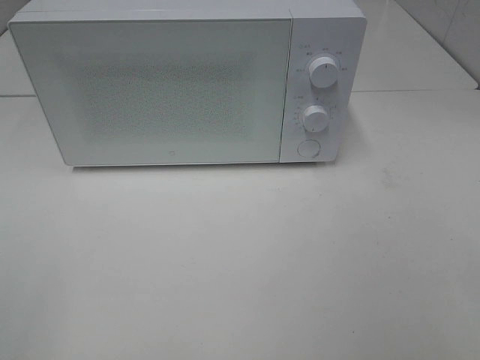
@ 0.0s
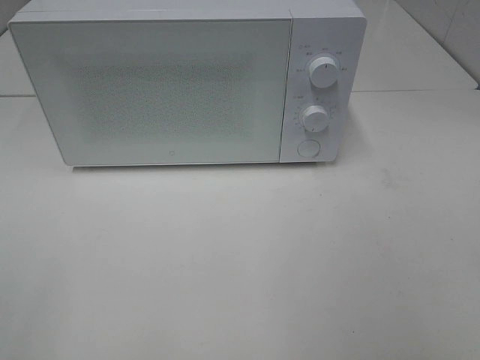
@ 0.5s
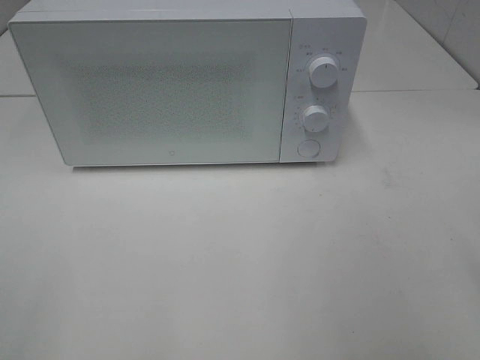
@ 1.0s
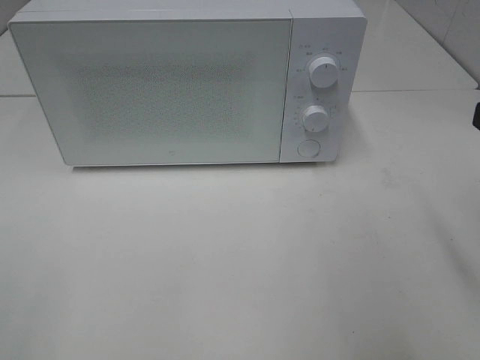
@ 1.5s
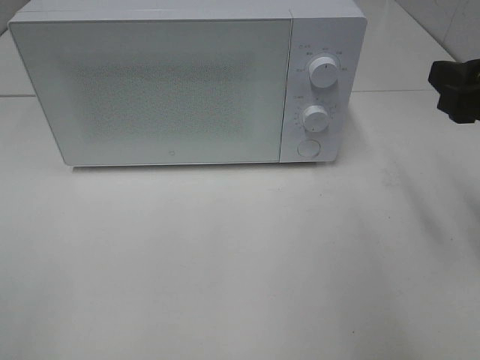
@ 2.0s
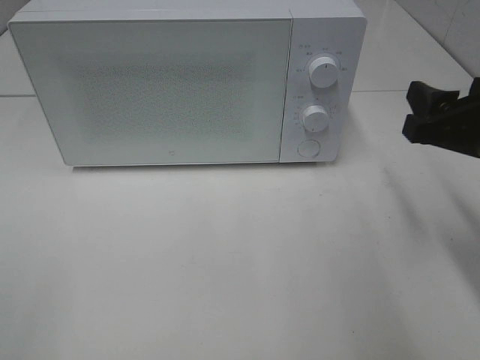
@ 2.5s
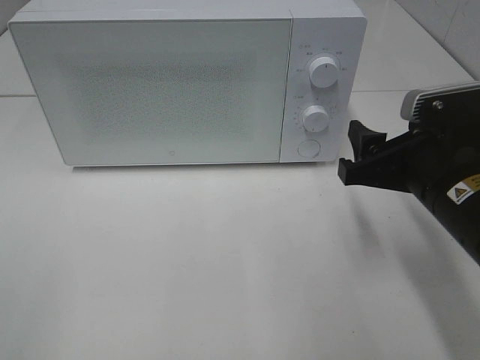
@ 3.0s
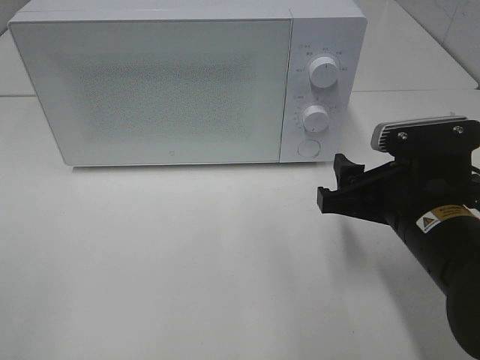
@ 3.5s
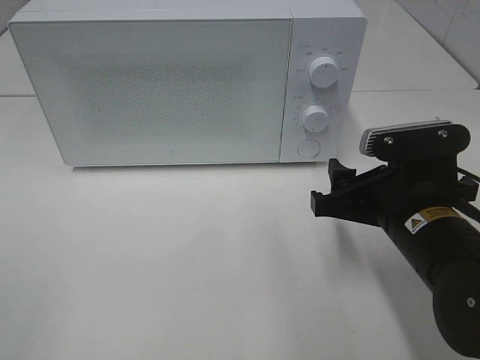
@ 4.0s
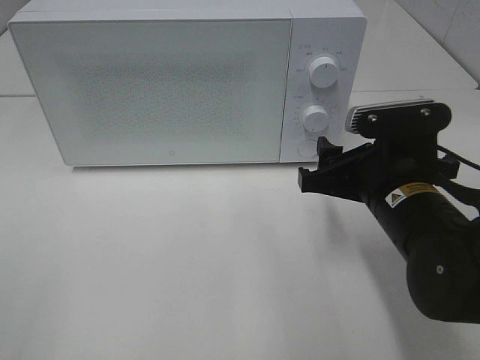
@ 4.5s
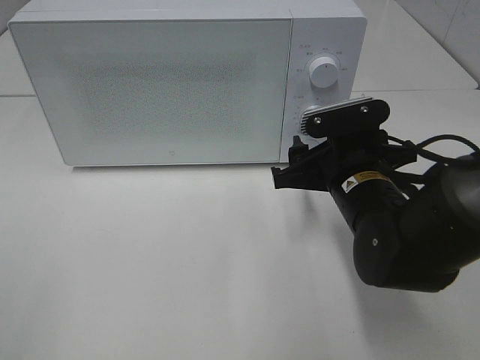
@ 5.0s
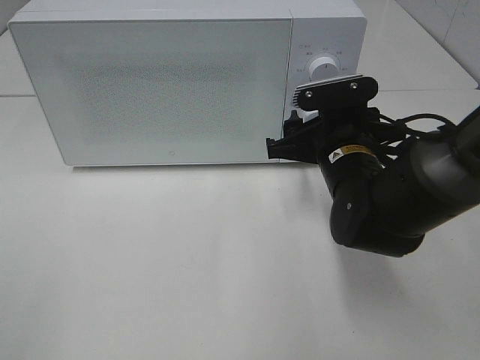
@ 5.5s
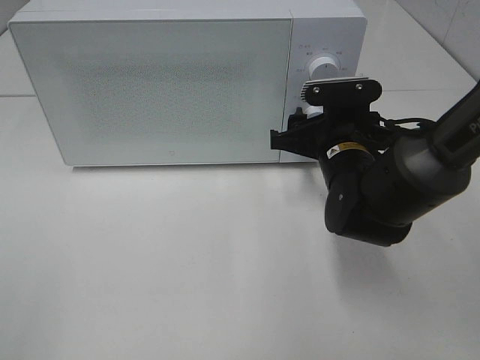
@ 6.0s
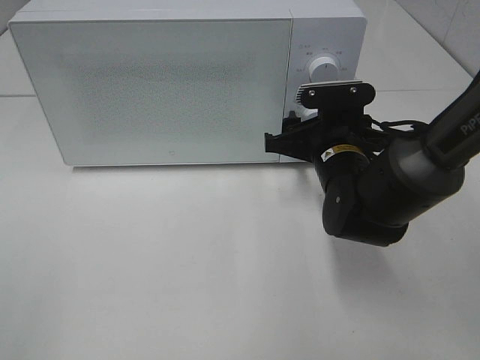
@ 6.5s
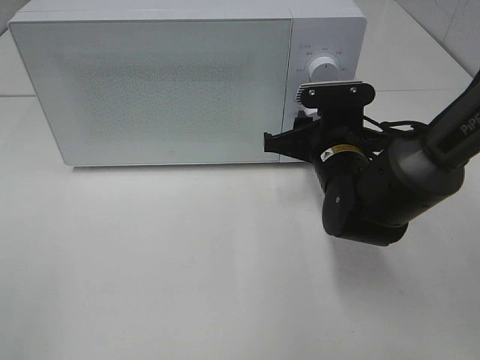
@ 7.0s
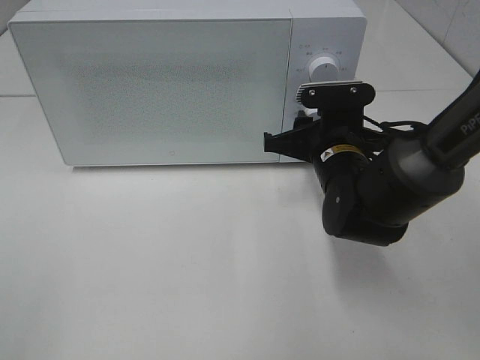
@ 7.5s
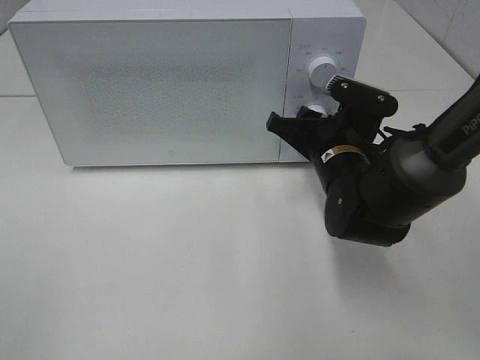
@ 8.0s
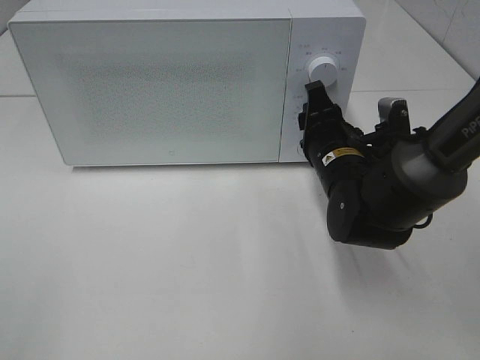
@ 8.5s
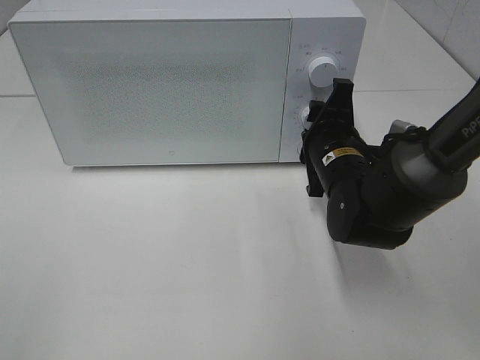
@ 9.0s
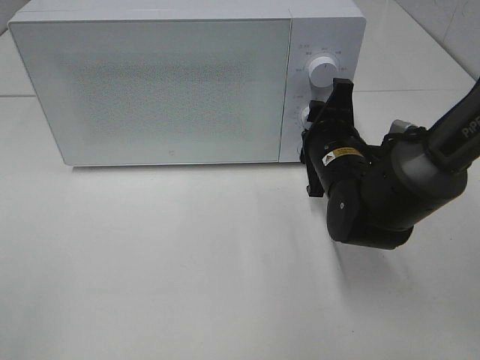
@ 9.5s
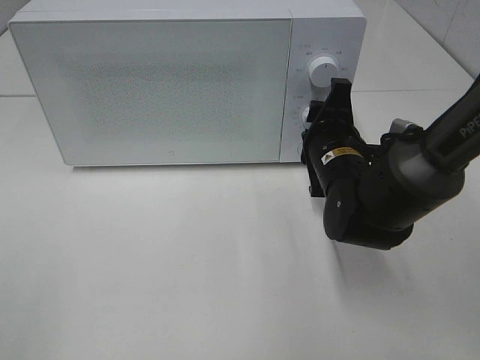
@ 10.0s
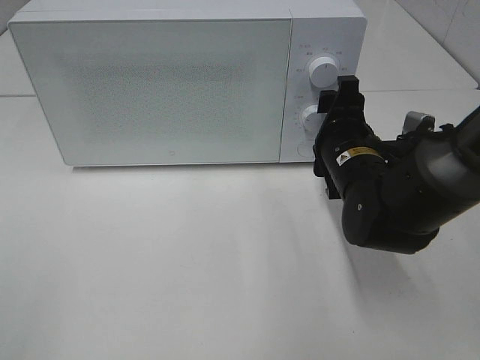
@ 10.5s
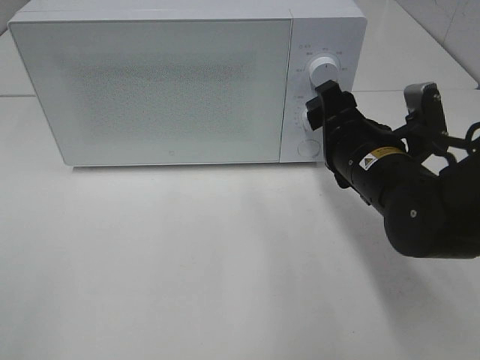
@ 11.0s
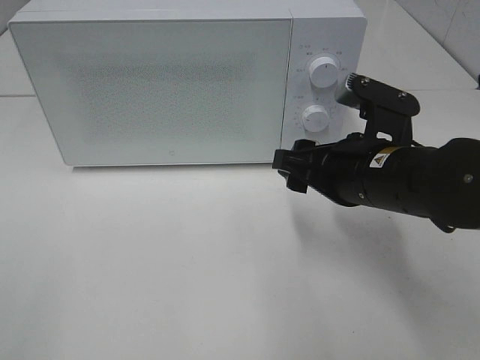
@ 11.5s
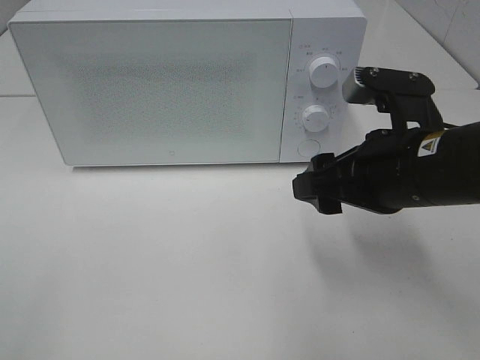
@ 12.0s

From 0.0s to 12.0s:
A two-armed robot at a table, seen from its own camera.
Task of the whole recording: Heat the burger.
Step, from 0.0s to 10.0s: Right hand: twist timer button.
From 0.0s to 2.0s: The right gripper shifts some 20 cm forward.
From 2.0s to 4.0s: The right gripper goes about 15 cm downward and to the left.
From 4.0s to 6.0s: The right gripper is displaced forward by some 10 cm.
From 10.0s to 12.0s: The right gripper is displaced backward and upward by some 15 cm.

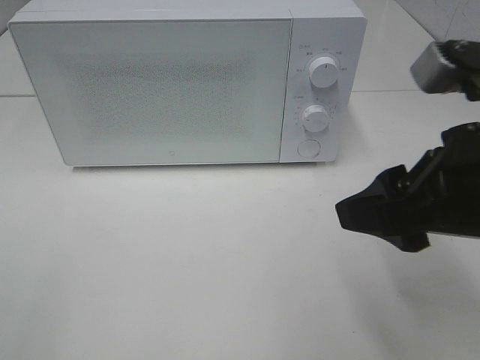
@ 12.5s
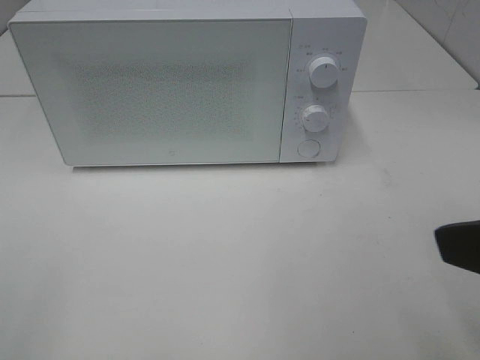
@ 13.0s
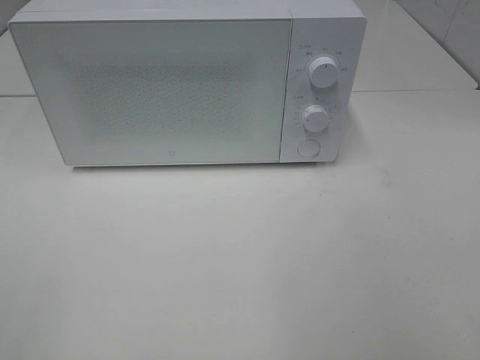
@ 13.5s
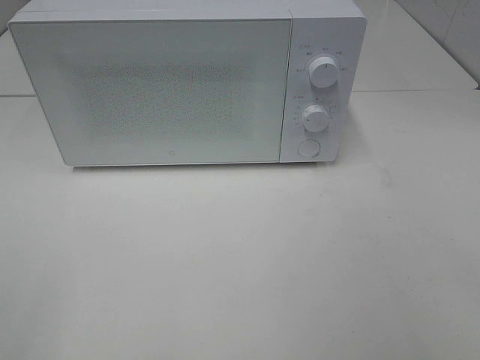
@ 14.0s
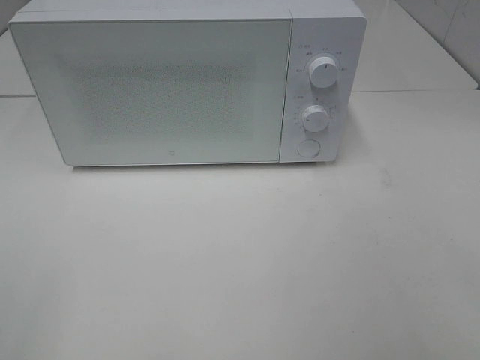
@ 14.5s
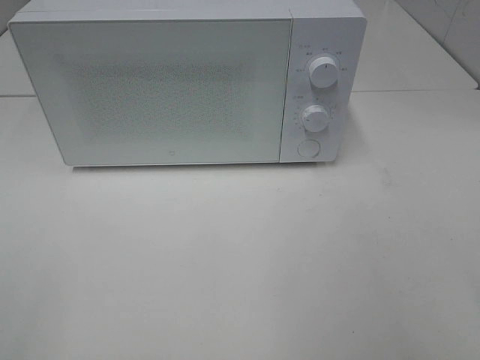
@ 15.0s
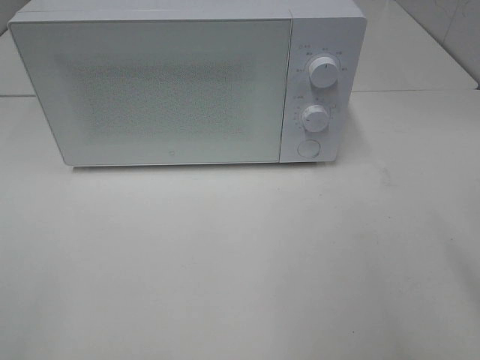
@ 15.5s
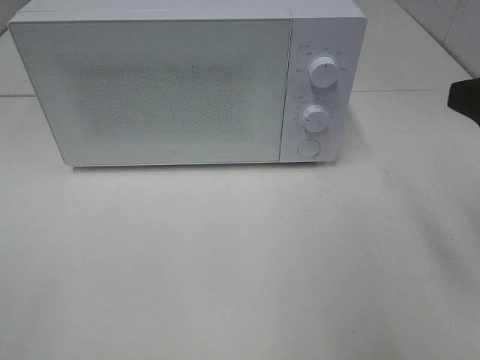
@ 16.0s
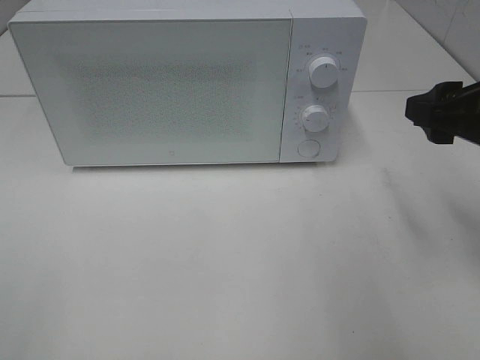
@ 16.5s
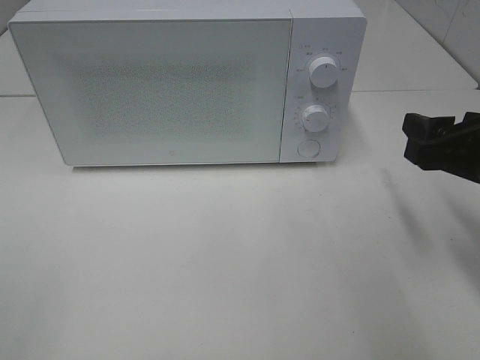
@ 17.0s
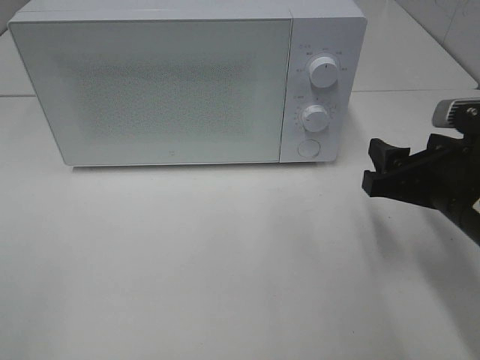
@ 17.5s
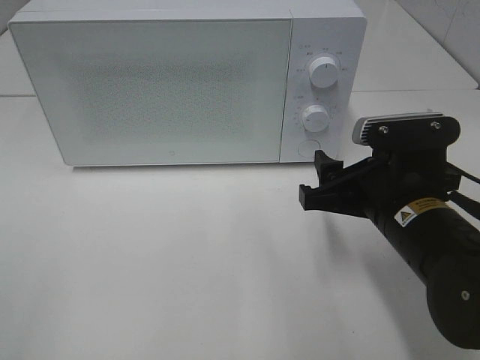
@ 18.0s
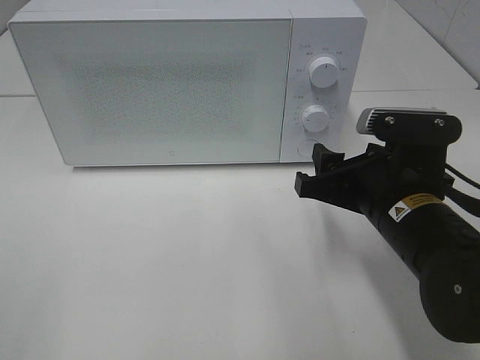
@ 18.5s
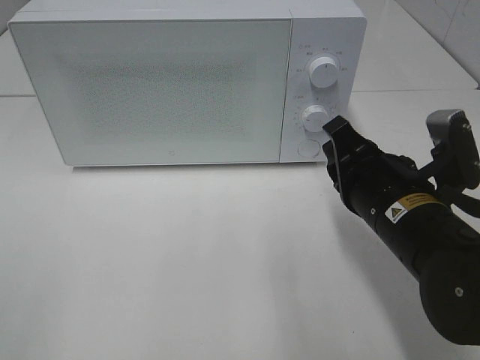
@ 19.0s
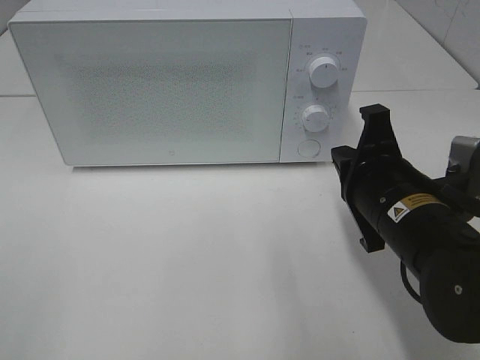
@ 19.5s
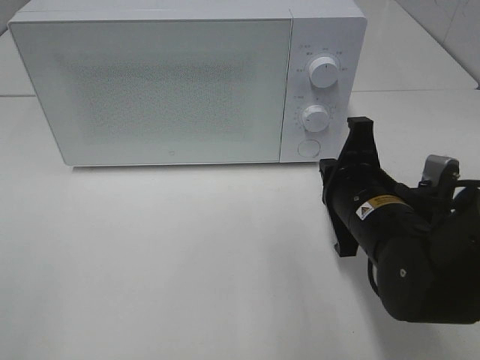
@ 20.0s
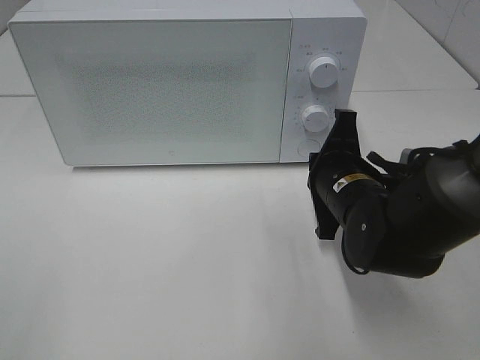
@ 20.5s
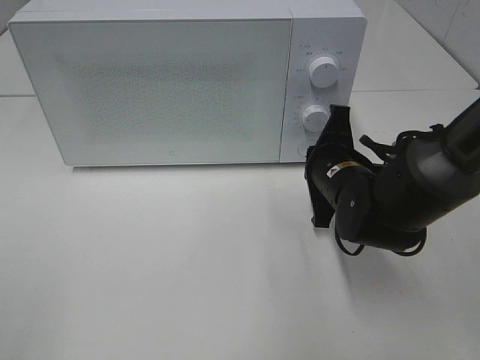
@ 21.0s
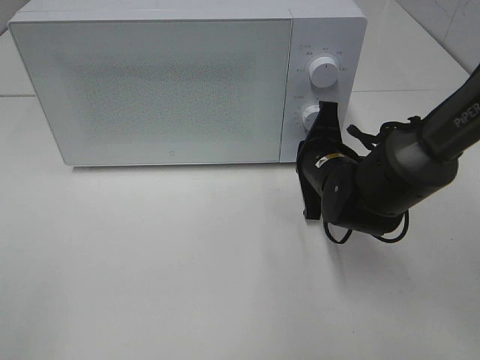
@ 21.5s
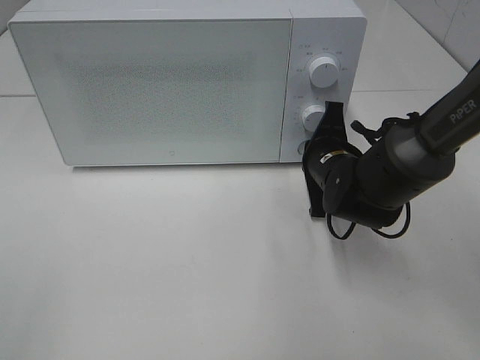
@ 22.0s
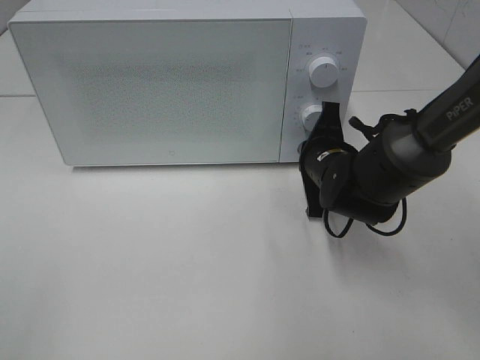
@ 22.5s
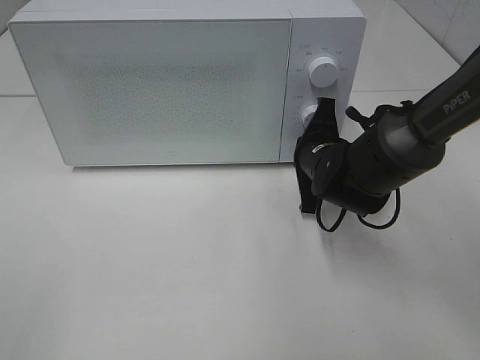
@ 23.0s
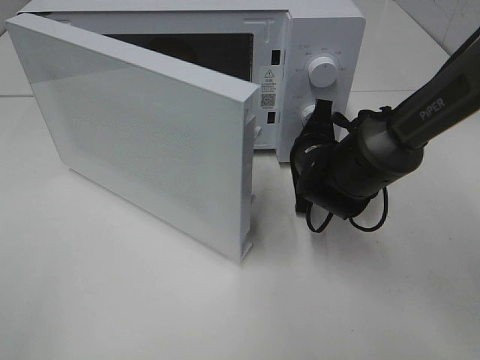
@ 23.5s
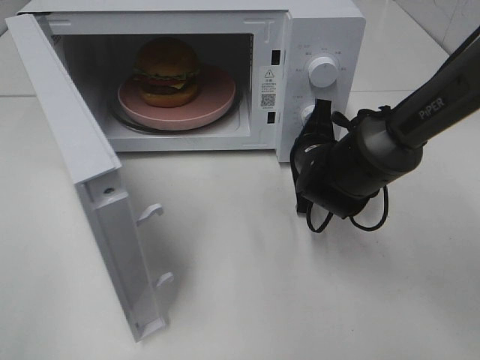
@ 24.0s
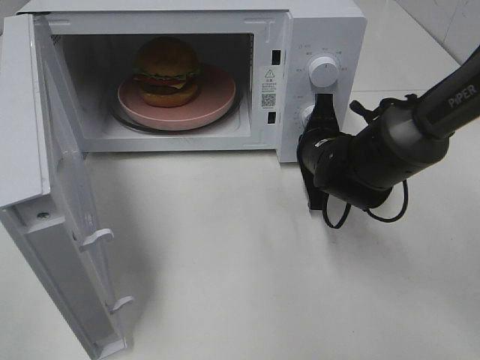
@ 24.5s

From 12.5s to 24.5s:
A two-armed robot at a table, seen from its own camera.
Task of the whole recording: Heat the burger.
From 12.5s to 14.5s: The right gripper is displaced backward and to the right by roughly 20 cm.
From 14.5s to 16.5s: The right gripper travels forward by some 25 cm.
From 16.5s to 18.5s: The right gripper shifts approximately 15 cm to the left and downward.
From 18.5s to 20.5s: The right gripper is displaced forward by some 5 cm, and closes up.
From 20.5s to 22.5s: The right gripper goes approximately 5 cm forward.

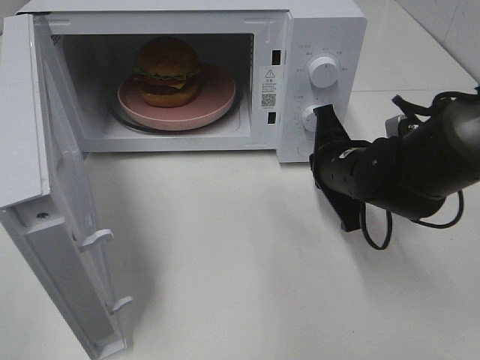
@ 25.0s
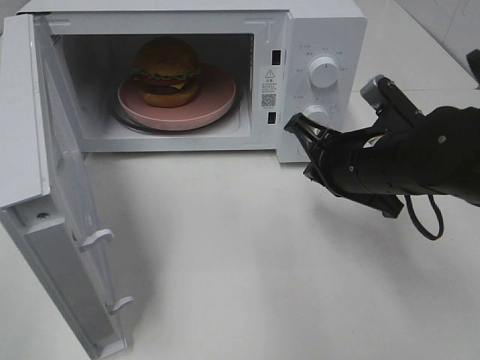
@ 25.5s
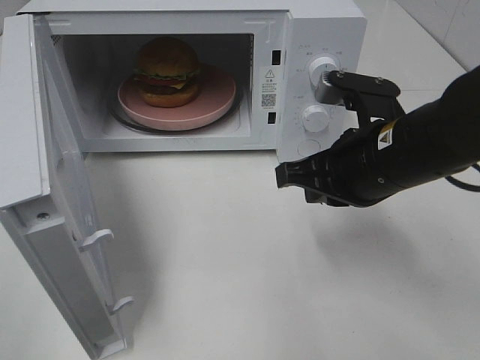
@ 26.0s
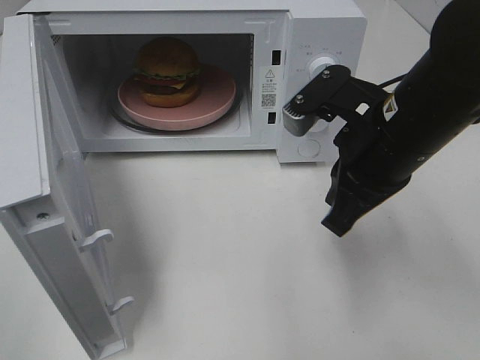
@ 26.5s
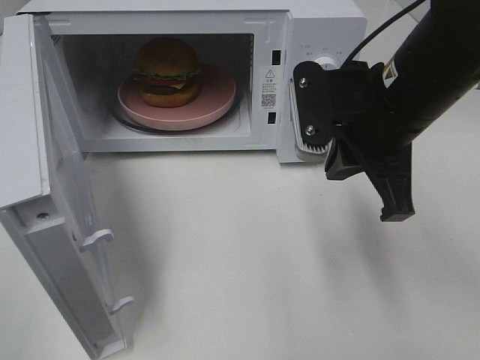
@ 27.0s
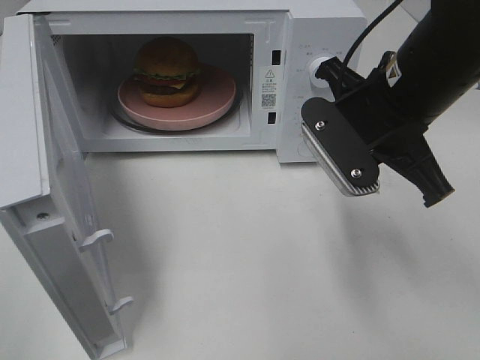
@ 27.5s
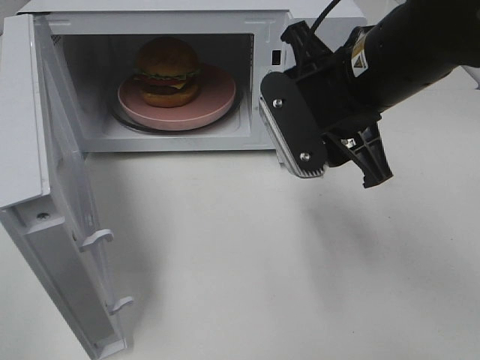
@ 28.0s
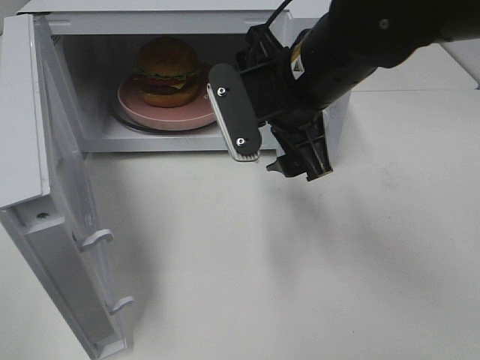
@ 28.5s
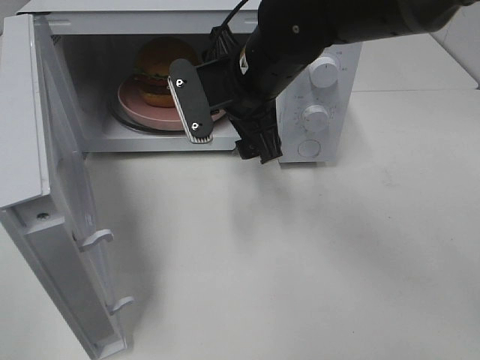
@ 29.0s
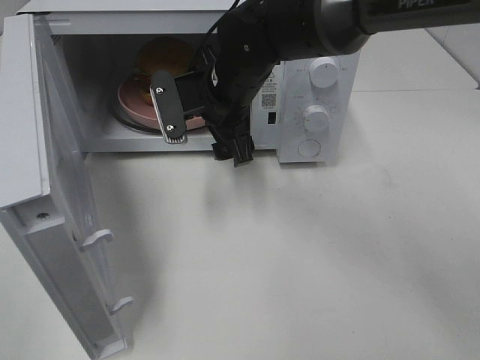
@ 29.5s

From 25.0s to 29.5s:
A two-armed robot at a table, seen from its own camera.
Task of the whole recording: Heat the burger.
From 25.0s to 27.0s: The right gripper heads upward, covering roughly 15 cm.
From 27.0s to 29.5s: The right gripper heads to the left, forward and downward, covering approximately 20 cm, and opens.
